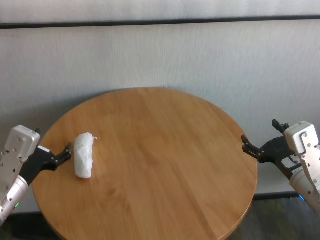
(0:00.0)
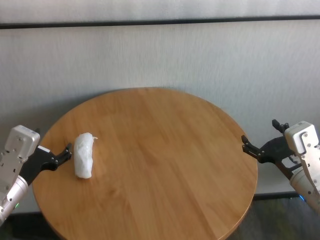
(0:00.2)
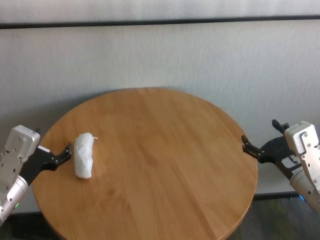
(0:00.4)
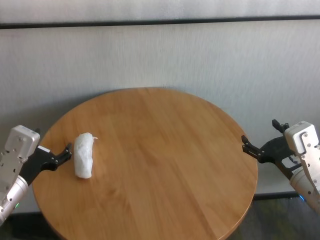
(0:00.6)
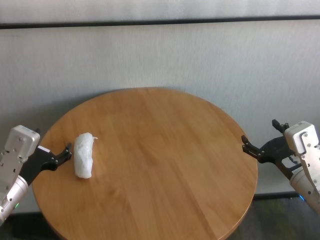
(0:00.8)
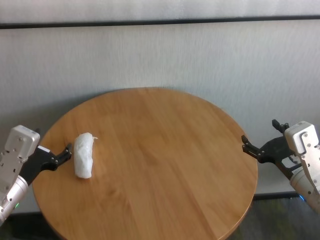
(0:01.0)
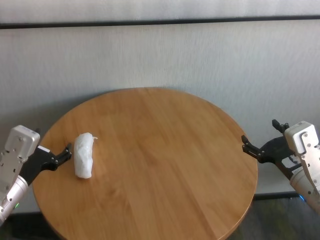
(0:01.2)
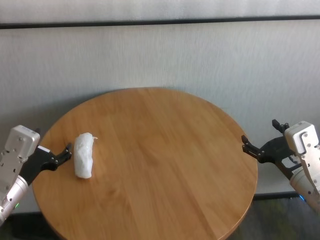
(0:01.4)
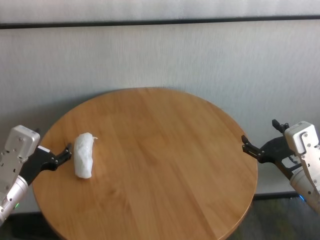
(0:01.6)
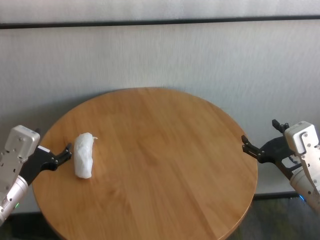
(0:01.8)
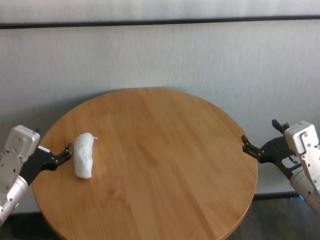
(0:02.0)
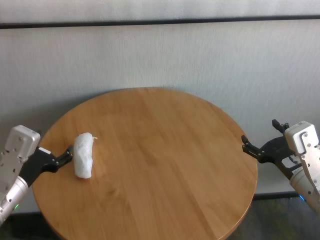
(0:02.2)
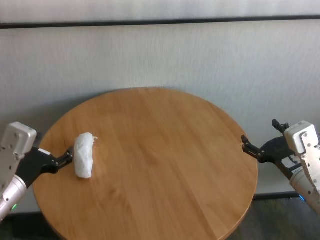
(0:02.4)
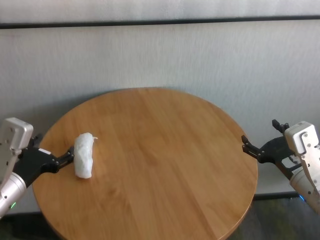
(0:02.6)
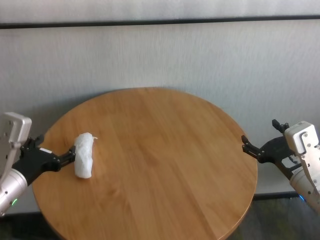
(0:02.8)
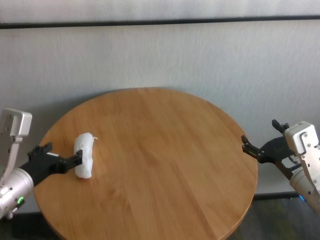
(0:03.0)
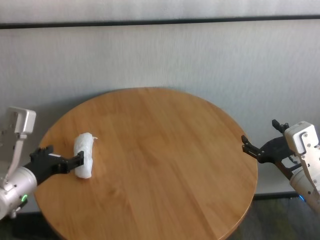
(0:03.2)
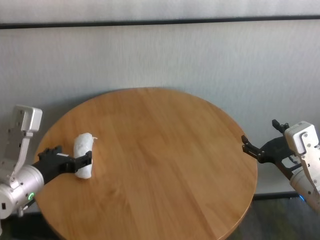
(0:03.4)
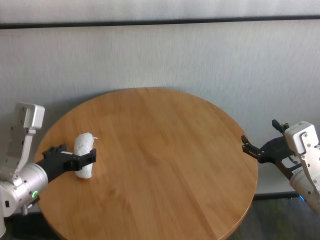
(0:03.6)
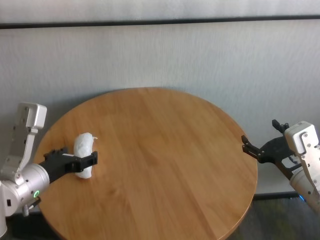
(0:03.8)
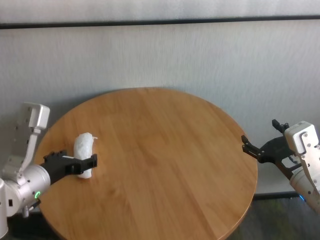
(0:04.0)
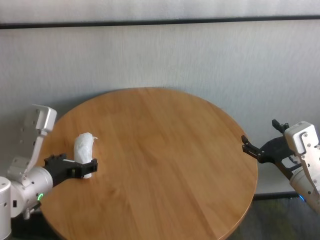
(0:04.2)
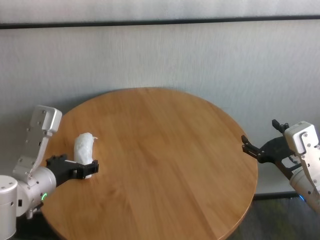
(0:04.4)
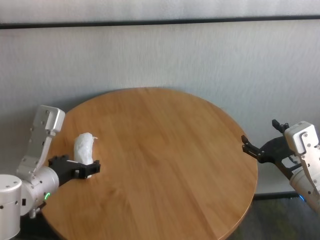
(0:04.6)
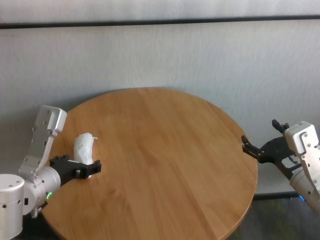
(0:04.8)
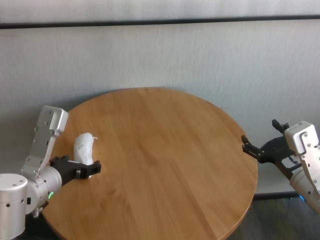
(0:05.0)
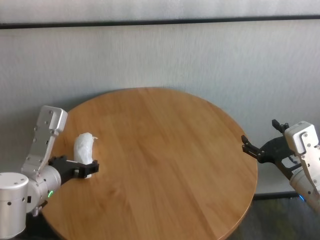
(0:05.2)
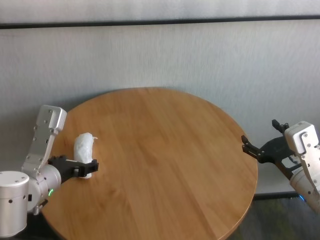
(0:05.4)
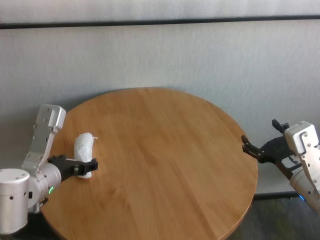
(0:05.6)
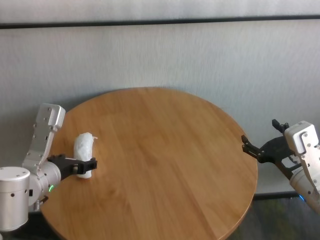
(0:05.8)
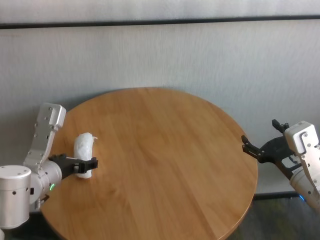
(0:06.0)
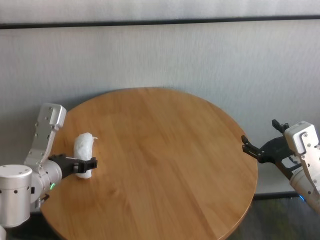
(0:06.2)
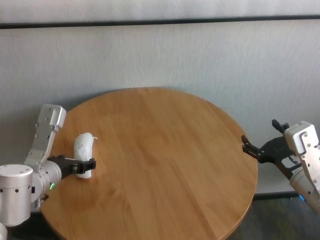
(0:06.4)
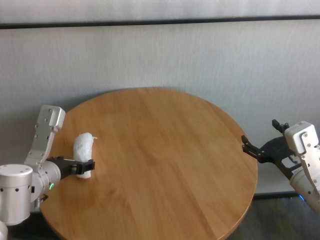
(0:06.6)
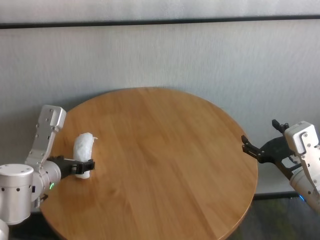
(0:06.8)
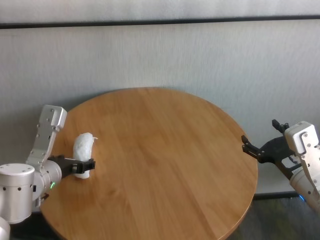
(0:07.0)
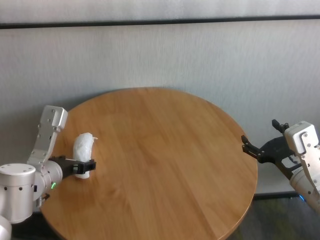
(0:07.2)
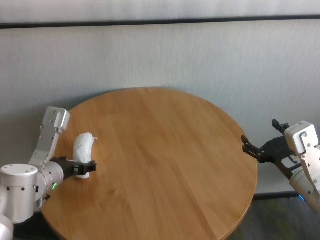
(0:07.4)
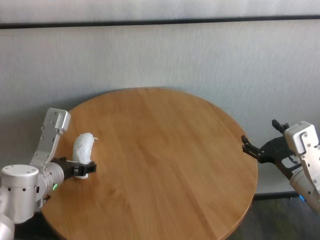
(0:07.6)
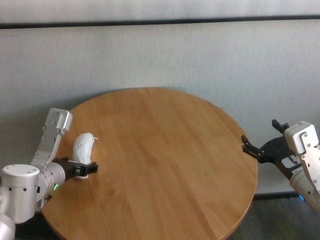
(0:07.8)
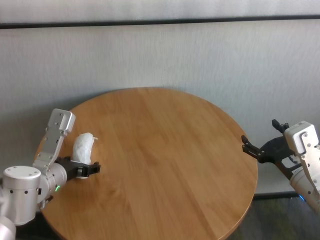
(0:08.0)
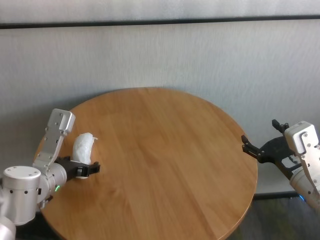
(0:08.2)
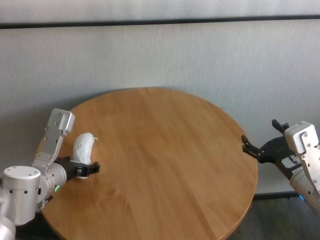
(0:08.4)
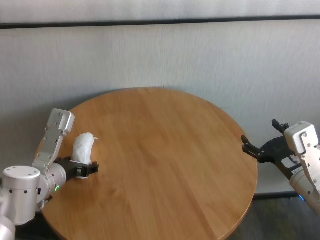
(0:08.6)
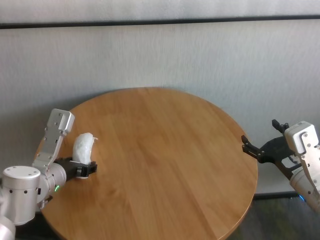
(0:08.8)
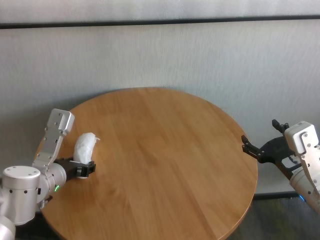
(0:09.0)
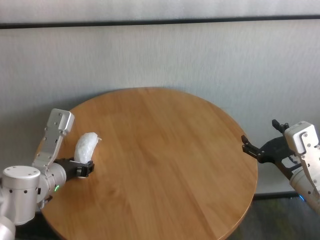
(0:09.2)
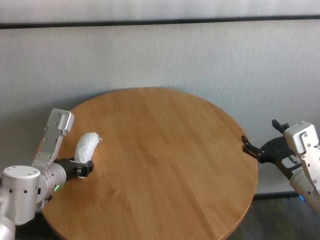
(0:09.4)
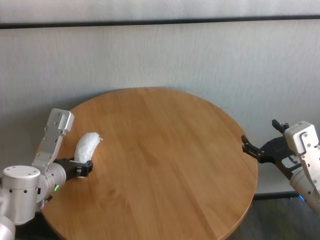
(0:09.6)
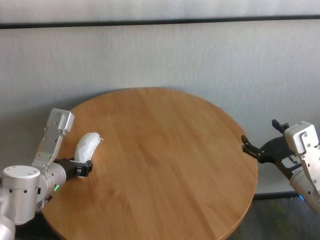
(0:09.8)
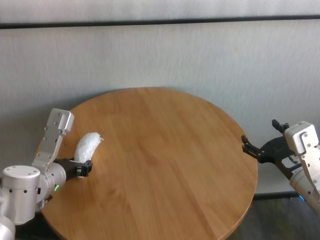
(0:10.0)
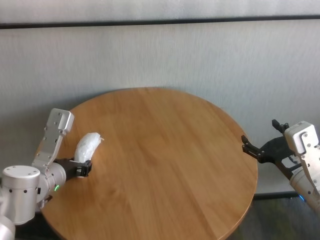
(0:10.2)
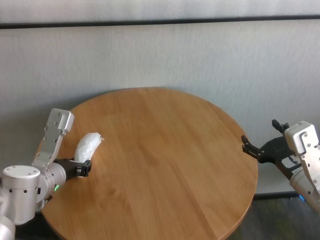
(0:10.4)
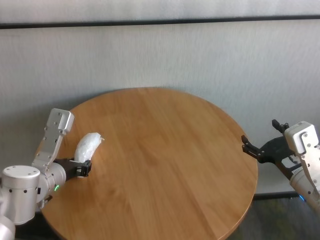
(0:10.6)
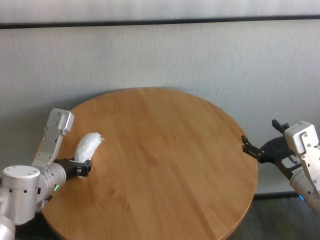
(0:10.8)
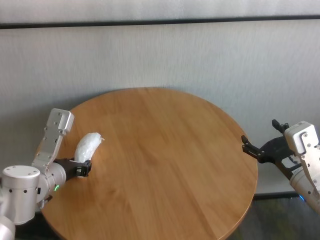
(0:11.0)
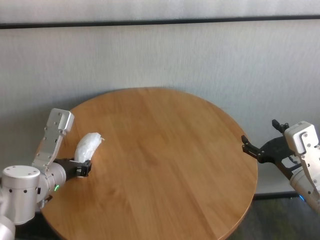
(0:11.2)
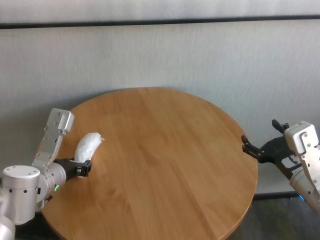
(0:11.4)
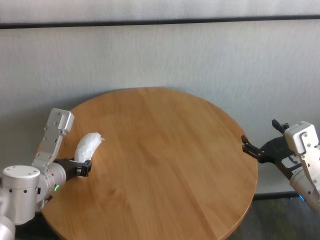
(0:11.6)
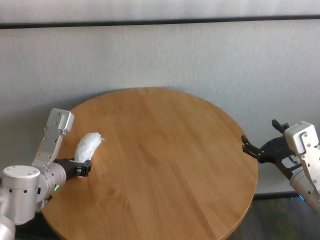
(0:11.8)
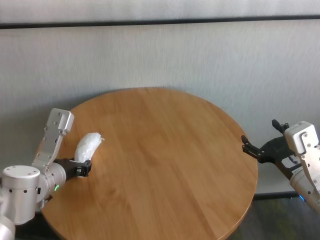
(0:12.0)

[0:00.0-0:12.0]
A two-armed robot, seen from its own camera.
Task of the whole recording: One hand took the sandbag from the other hand and placed it on the table.
Step, 0:00.0 to 0:11.8: Grasp the paper ball with left gripper.

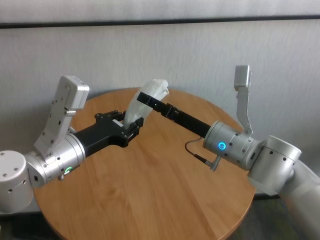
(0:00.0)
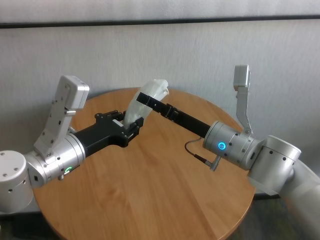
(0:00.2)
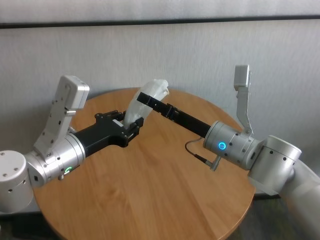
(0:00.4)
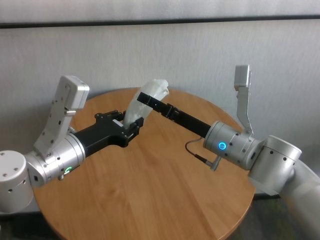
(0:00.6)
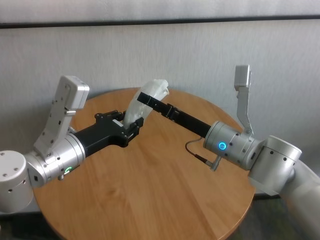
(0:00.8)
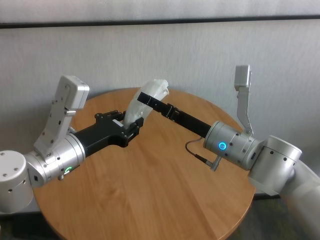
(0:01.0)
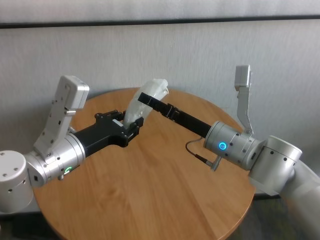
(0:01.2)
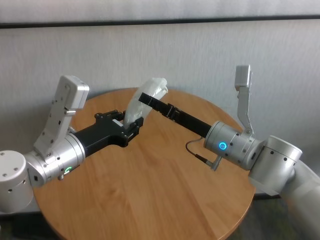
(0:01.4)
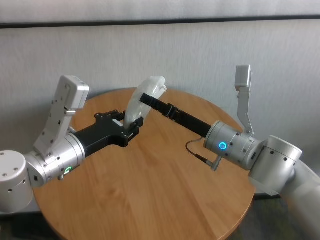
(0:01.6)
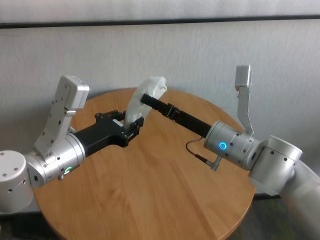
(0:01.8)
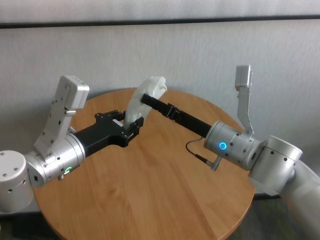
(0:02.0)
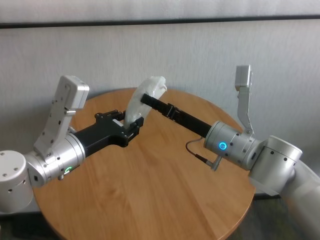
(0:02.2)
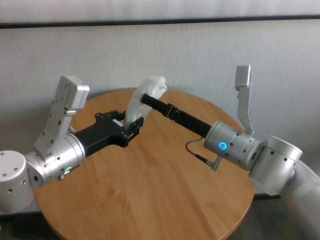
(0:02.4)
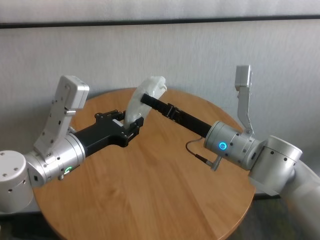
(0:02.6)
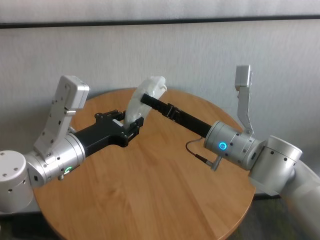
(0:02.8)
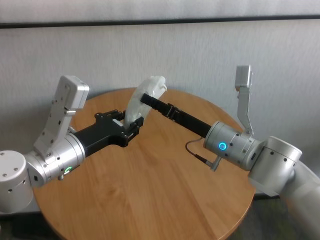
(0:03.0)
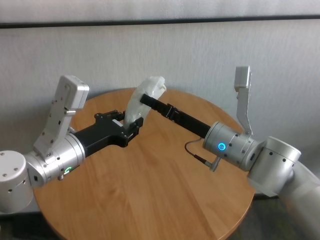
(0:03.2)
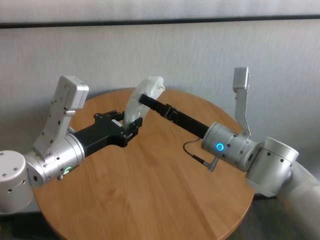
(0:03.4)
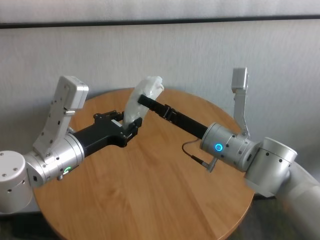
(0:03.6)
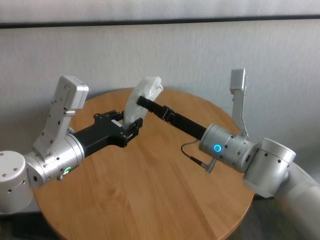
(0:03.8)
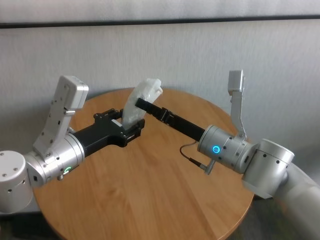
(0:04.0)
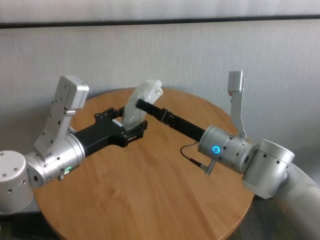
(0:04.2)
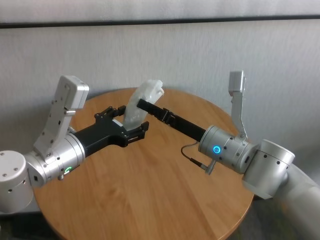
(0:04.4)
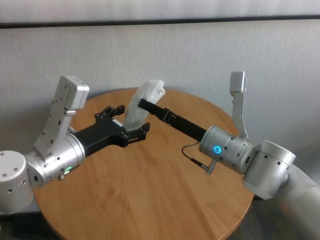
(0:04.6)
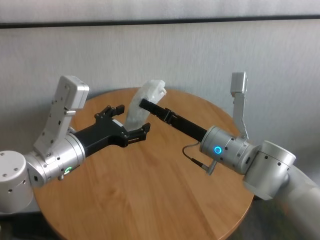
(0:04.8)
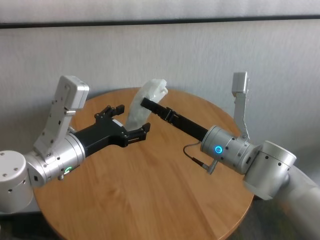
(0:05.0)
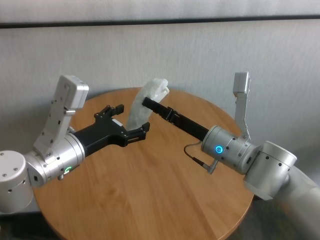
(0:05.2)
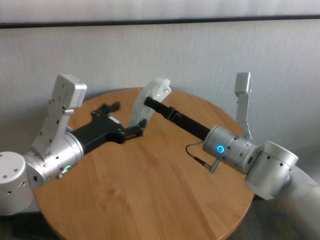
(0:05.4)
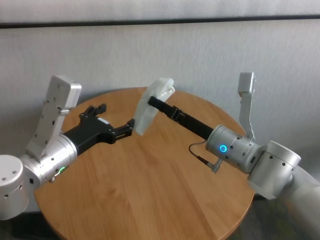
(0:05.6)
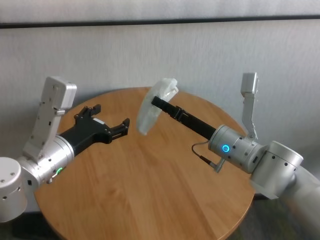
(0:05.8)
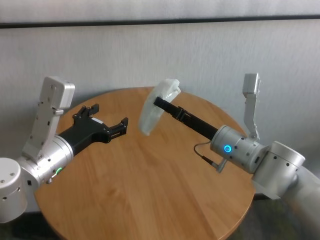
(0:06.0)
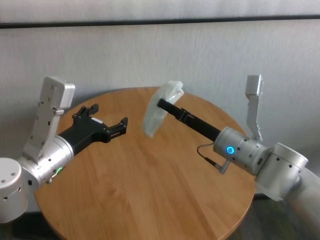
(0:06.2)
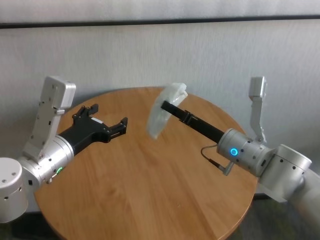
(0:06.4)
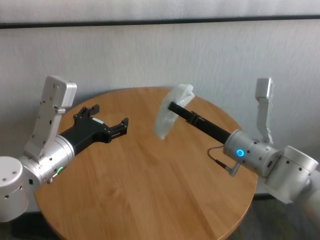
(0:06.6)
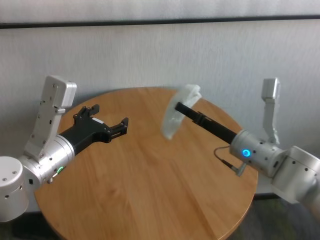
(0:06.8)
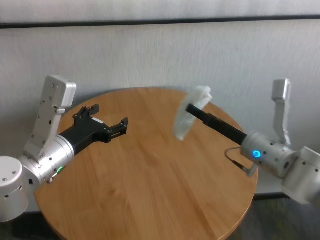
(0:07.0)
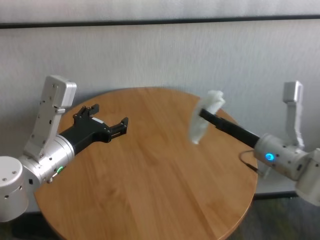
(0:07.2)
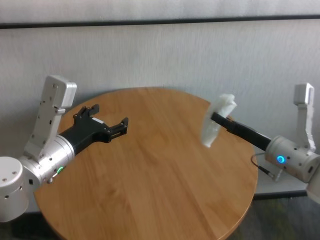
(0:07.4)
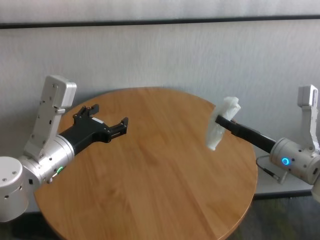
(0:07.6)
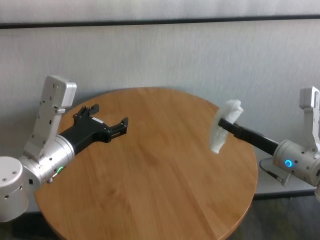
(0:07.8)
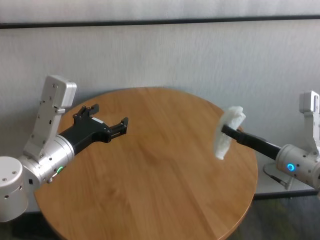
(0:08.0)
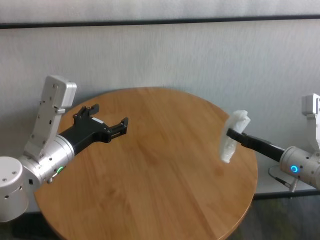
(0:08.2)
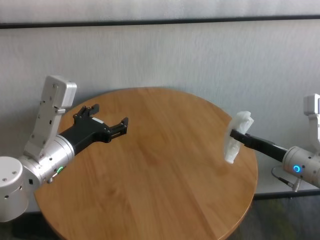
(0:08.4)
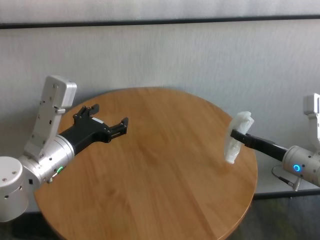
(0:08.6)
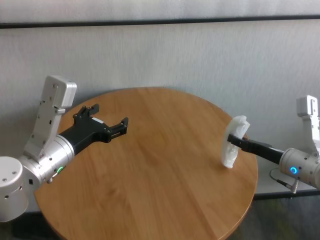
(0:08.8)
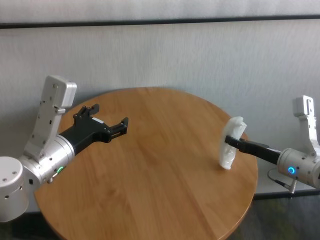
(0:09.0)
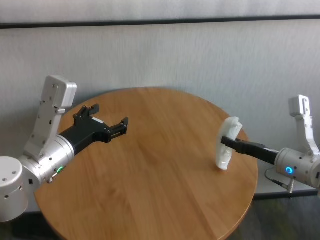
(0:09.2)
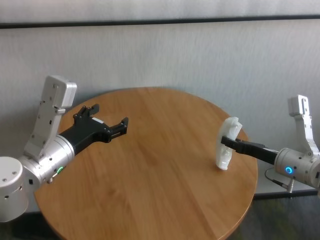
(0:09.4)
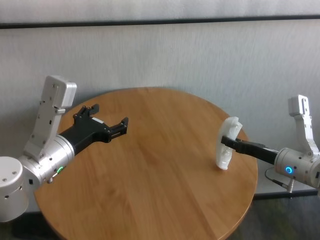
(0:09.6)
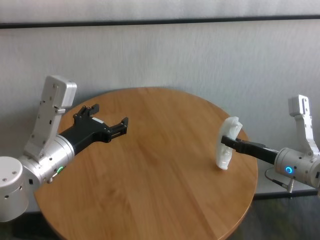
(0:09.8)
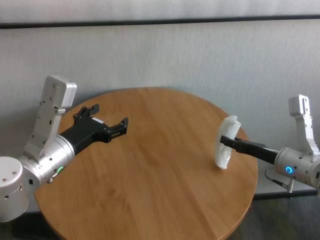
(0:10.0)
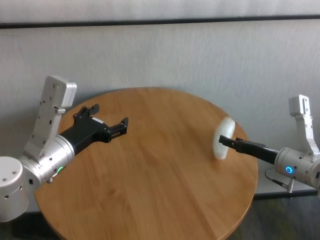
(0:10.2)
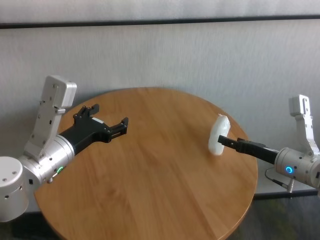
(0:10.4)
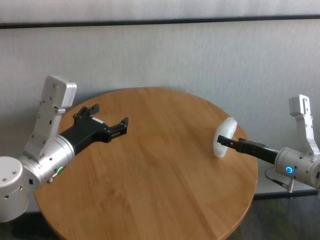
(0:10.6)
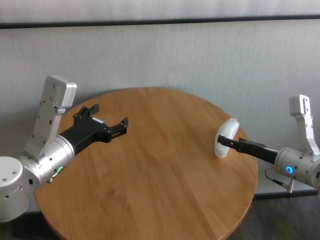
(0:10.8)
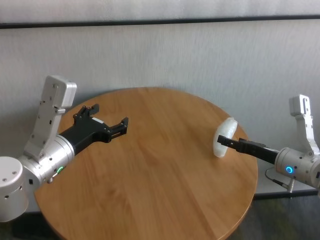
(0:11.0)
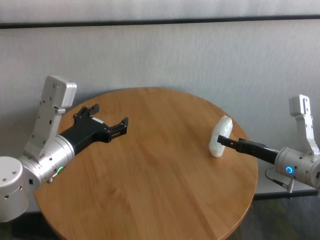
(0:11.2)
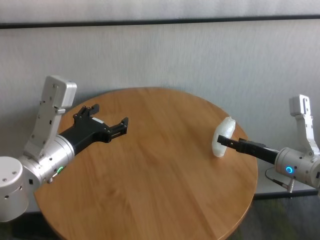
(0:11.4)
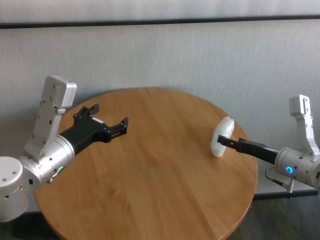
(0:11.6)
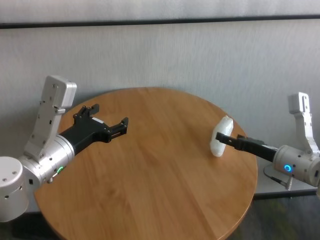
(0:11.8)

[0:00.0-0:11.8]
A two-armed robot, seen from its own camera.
Task of the whole recording: One hand took the sandbag from the other hand and placed it on the table.
Step, 0:00.0 to 0:05.2: Pass the paper ball to the right gripper.
Step, 0:05.4 to 0:10.2: Place the paper ball on the table with right gripper.
